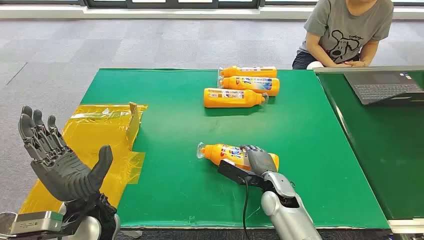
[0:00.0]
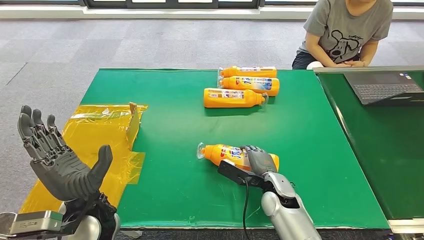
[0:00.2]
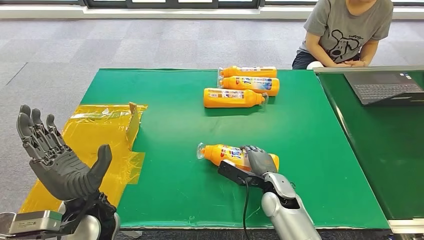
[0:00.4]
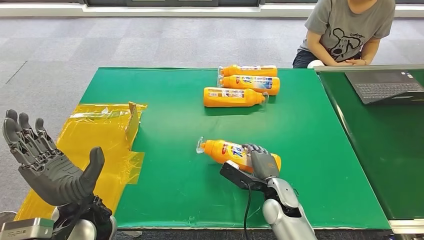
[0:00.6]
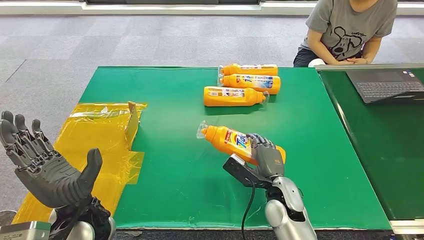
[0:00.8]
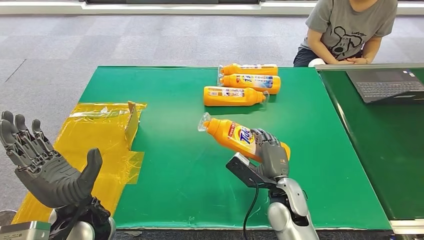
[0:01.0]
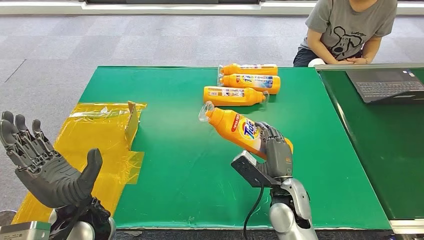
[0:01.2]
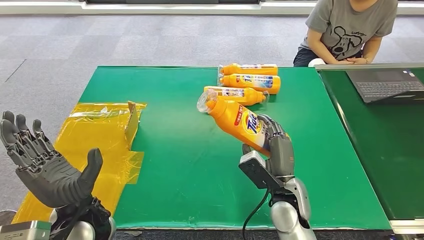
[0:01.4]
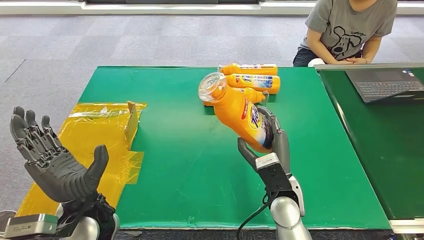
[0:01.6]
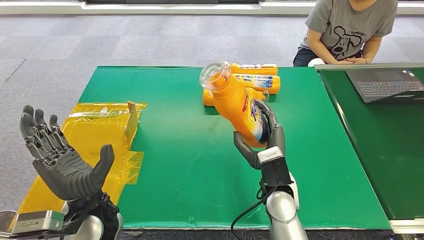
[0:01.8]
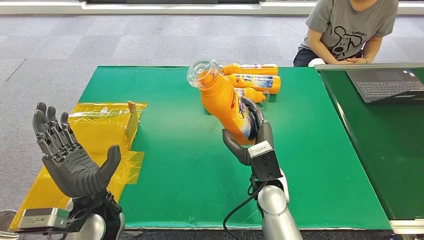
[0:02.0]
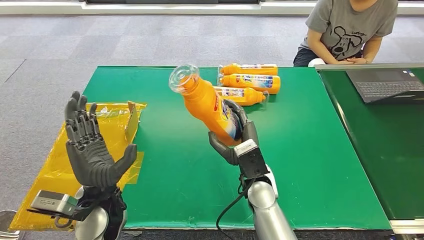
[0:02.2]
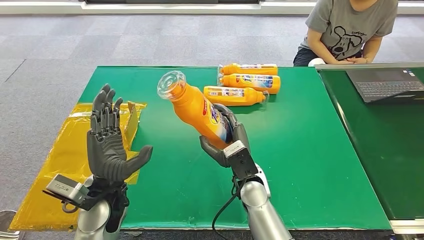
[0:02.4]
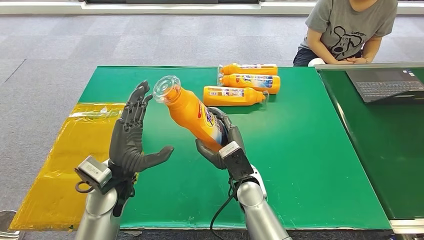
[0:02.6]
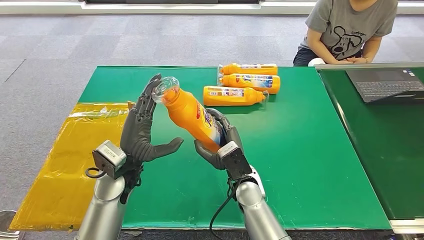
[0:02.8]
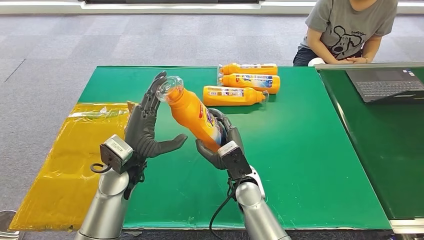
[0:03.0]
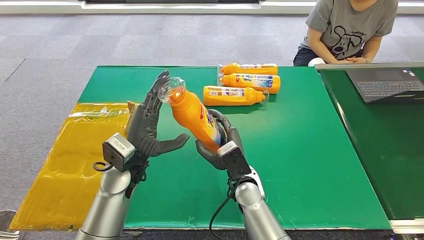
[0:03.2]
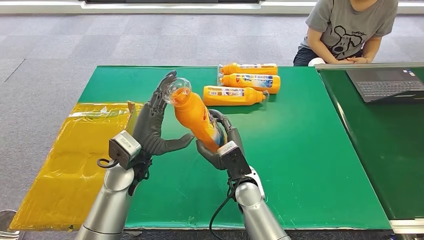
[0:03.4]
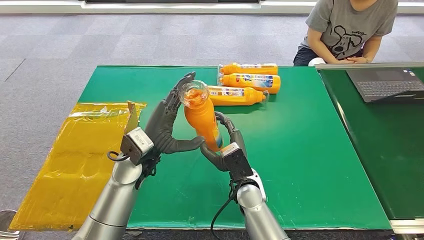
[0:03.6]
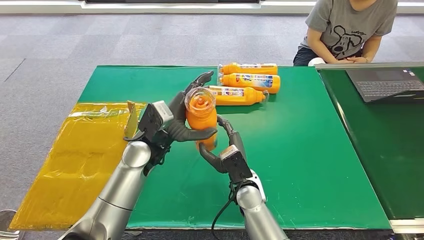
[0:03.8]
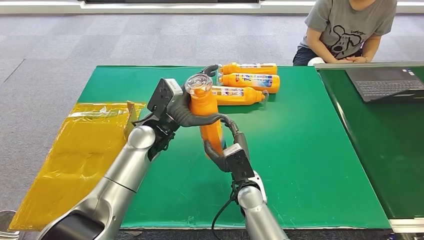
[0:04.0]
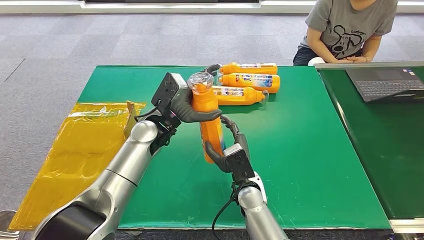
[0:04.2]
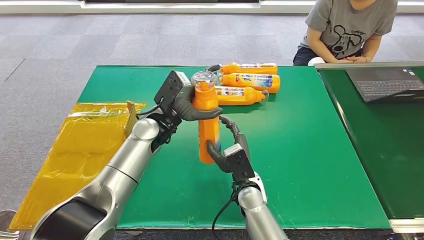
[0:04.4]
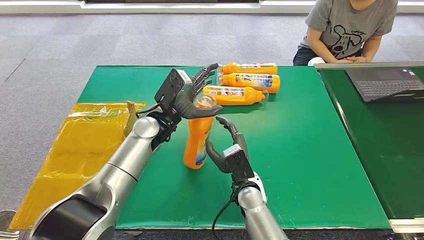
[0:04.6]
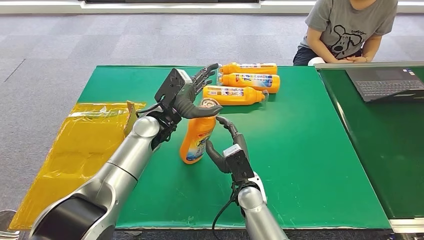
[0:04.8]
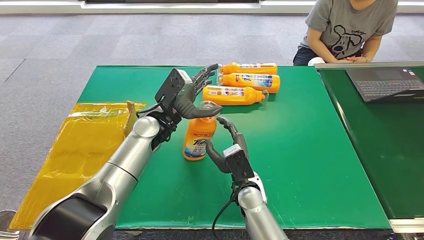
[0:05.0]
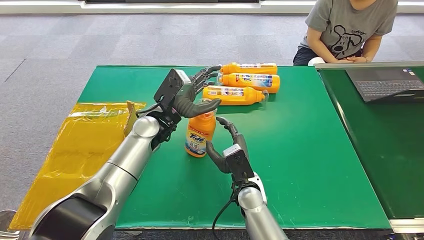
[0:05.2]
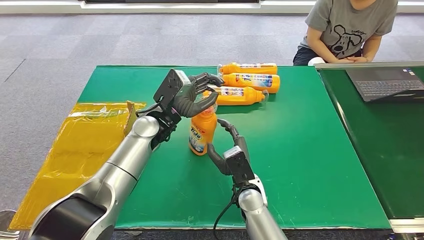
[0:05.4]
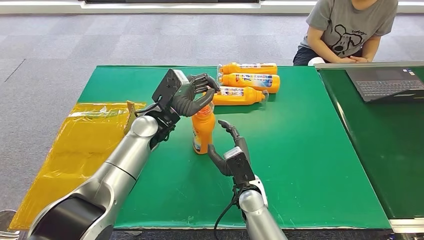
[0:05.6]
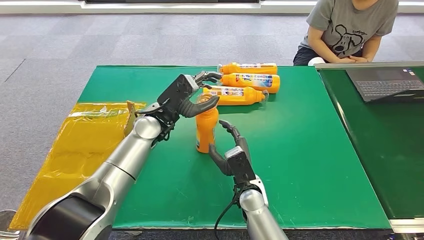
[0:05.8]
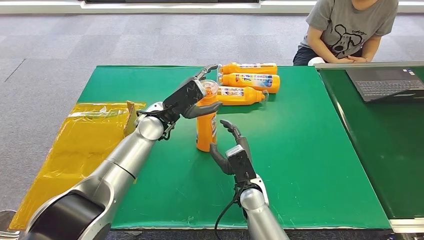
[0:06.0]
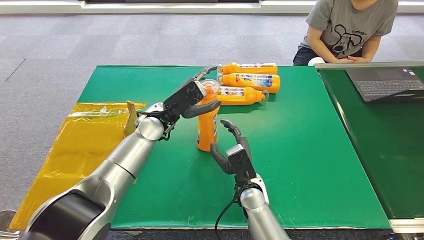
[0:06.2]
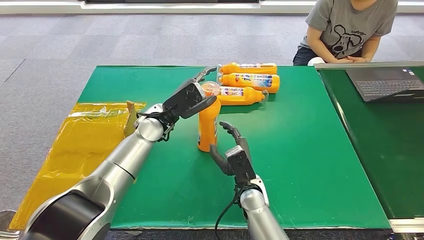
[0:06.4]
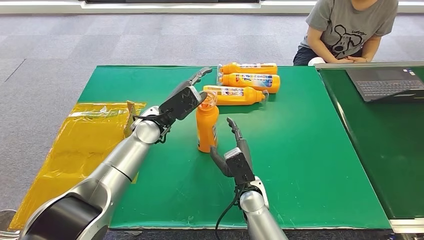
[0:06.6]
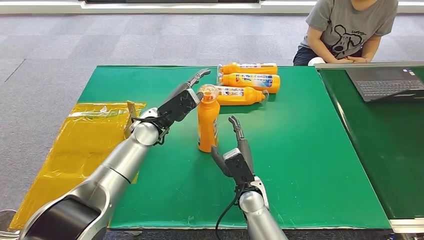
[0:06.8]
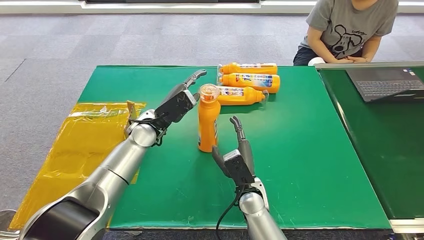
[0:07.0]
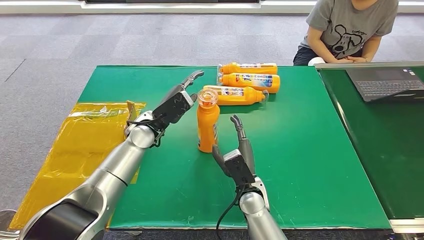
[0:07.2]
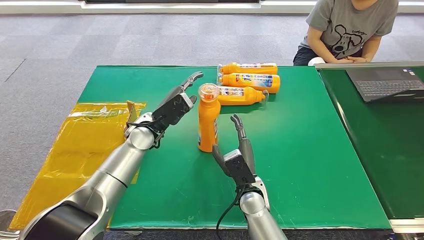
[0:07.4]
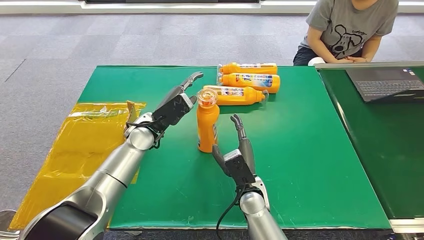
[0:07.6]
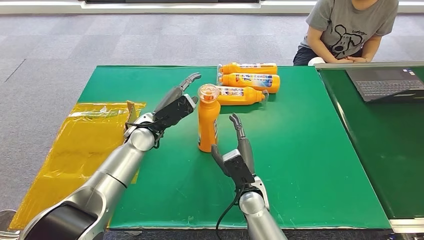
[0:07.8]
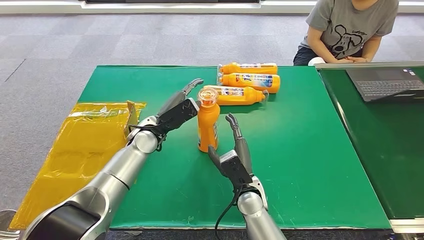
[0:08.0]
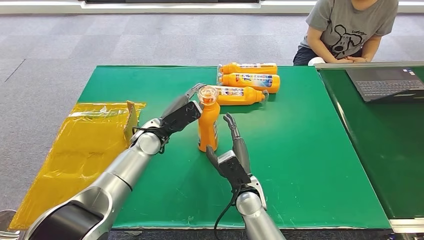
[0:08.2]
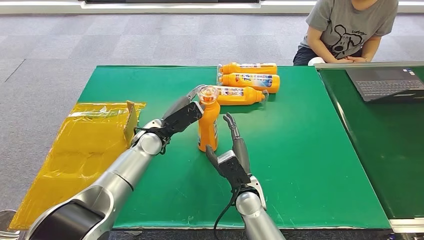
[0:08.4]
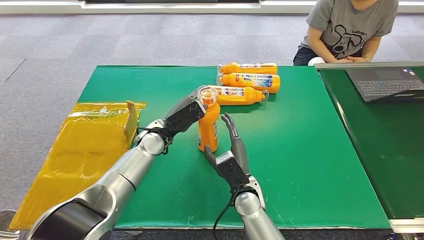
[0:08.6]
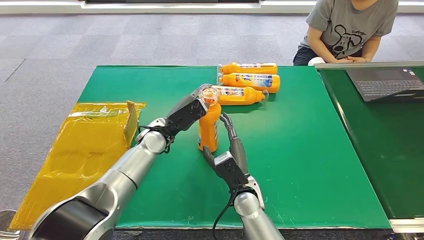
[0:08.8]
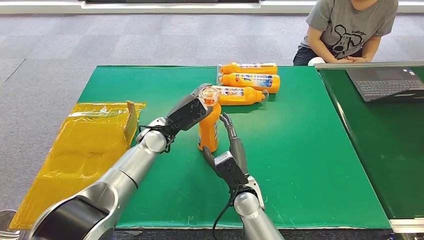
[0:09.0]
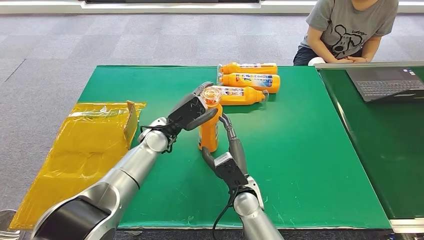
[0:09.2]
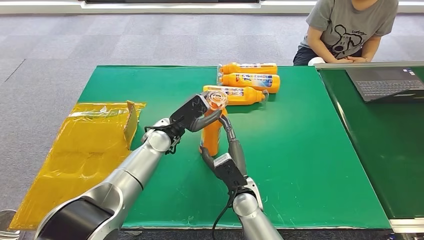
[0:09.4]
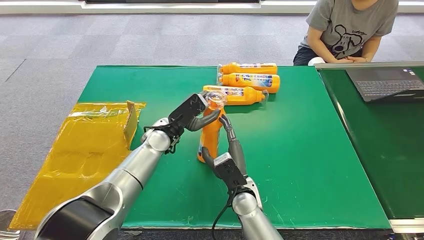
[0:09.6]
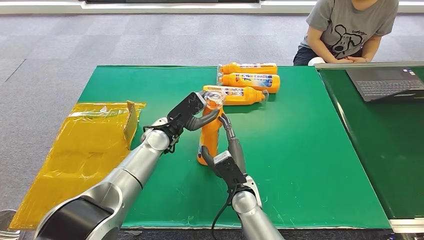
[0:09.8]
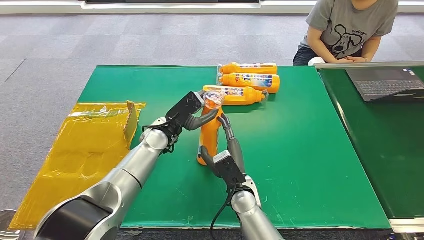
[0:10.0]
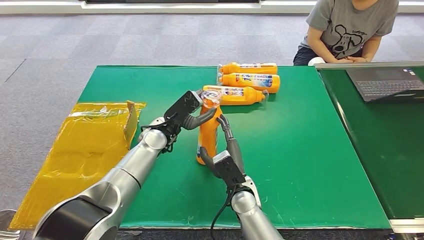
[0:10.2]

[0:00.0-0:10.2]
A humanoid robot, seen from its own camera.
Step, 0:00.0 to 0:01.4: Pick up the bottle from the table.
0:03.0 to 0:04.4: The left hand heads forward and to the right, covering about 10 cm.
0:04.4 to 0:05.8: The hands make only small movements.
0:05.8 to 0:07.2: The hands move only a little.
0:07.2 to 0:10.2: The hands make only small movements.

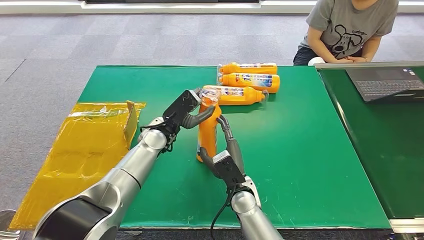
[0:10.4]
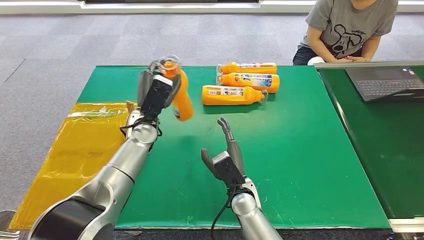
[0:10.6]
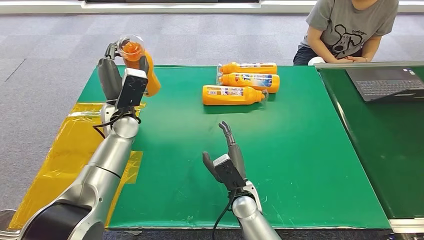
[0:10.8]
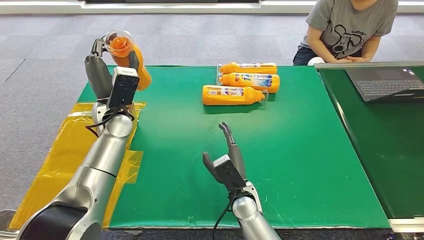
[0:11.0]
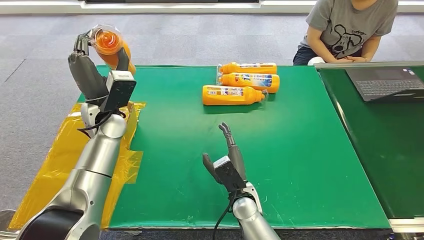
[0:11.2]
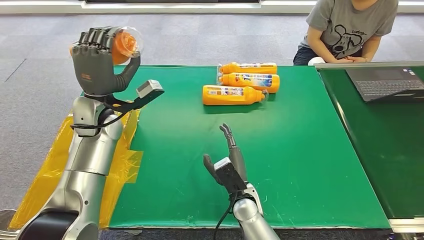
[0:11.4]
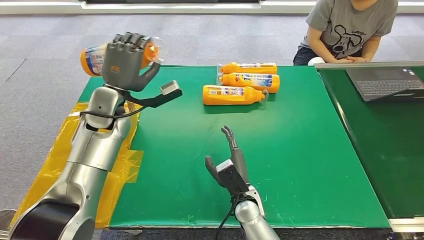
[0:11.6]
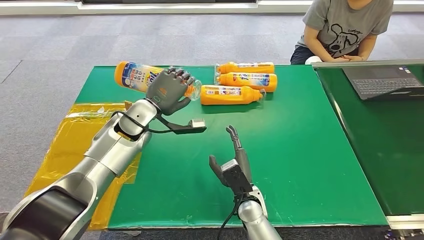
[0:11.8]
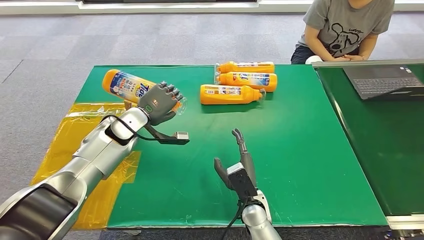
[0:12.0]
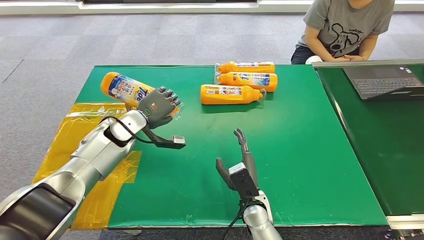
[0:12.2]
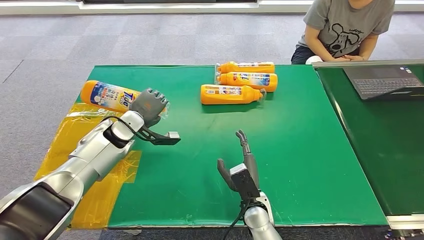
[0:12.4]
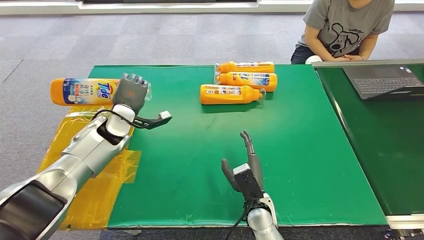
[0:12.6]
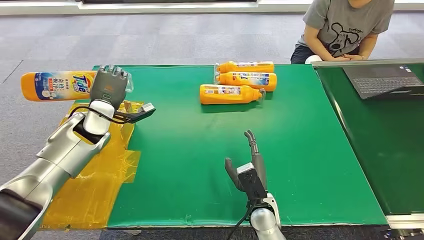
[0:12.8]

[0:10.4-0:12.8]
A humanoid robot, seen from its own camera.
Step, 0:10.4 to 0:12.6: Turn the bottle to the front side.
0:10.4 to 0:11.6: The left hand travels to the left and upward by approximately 15 cm.

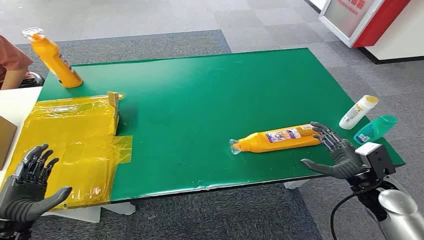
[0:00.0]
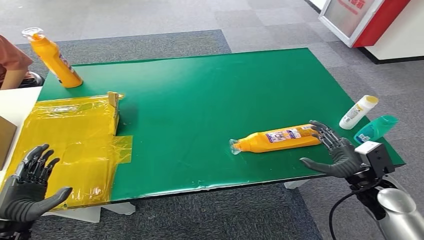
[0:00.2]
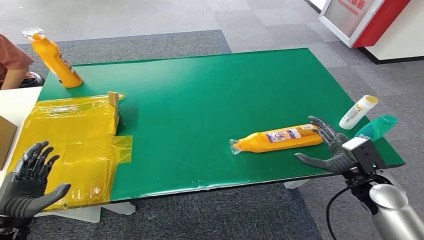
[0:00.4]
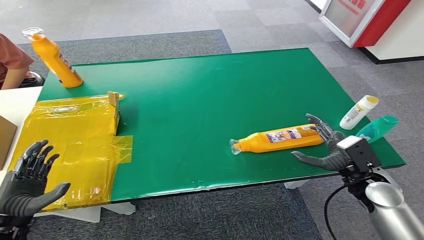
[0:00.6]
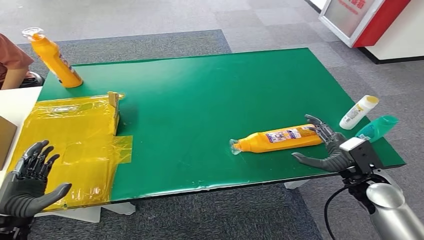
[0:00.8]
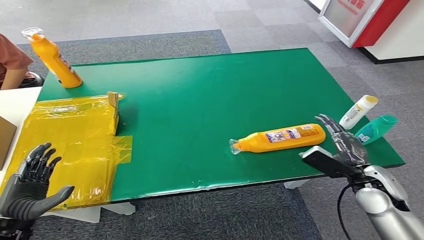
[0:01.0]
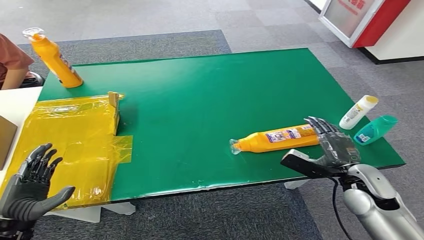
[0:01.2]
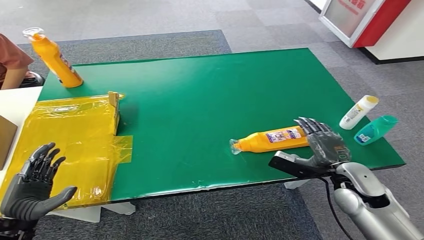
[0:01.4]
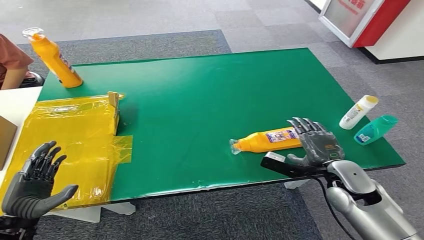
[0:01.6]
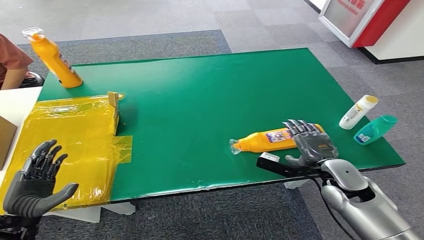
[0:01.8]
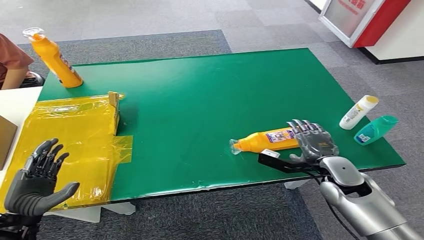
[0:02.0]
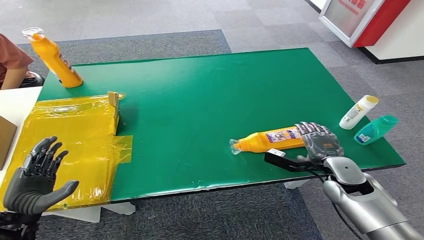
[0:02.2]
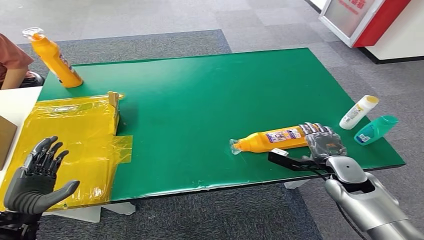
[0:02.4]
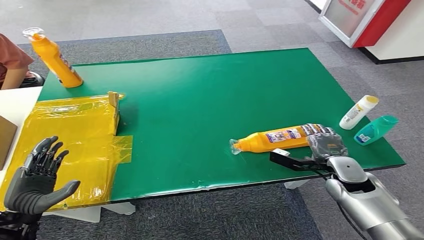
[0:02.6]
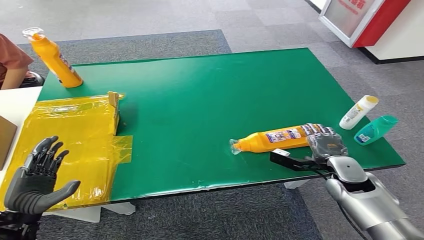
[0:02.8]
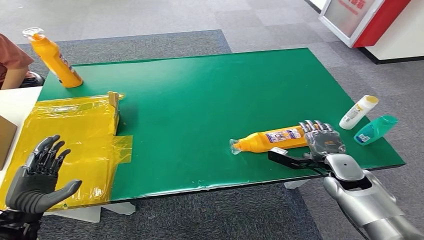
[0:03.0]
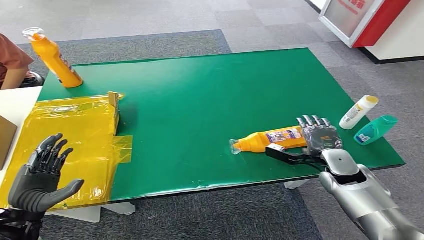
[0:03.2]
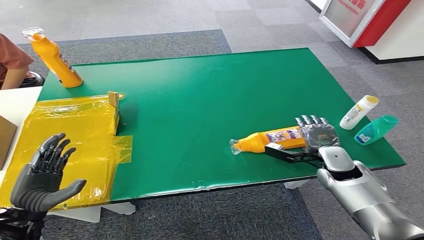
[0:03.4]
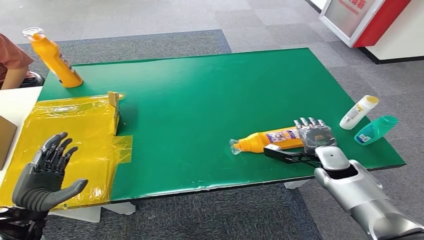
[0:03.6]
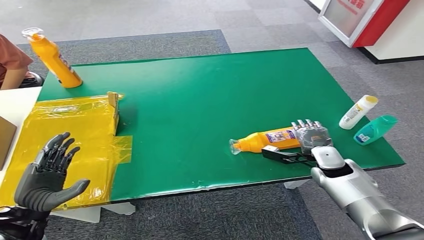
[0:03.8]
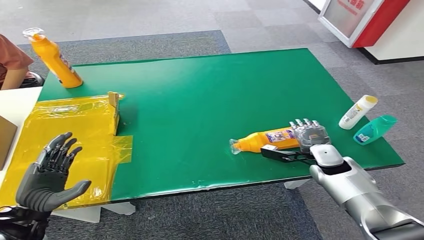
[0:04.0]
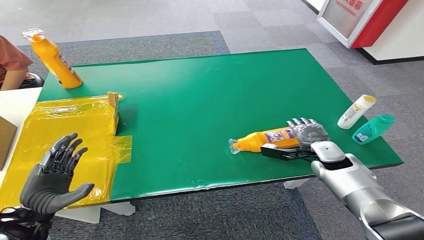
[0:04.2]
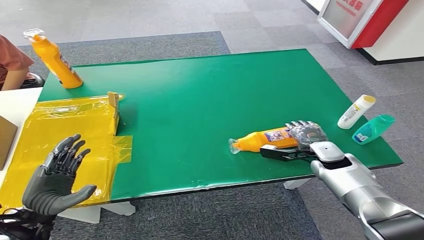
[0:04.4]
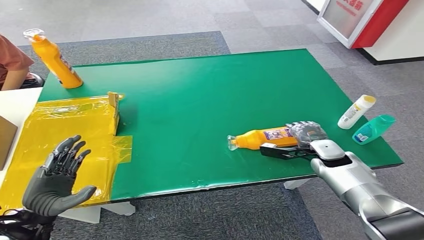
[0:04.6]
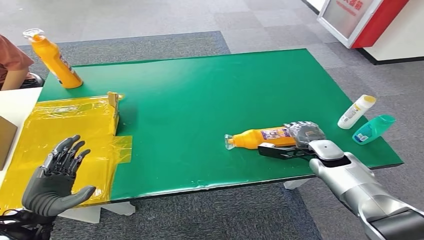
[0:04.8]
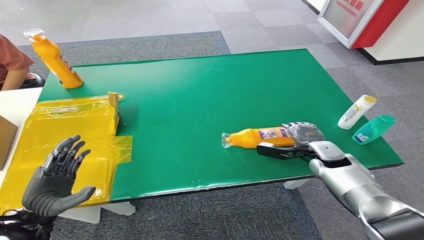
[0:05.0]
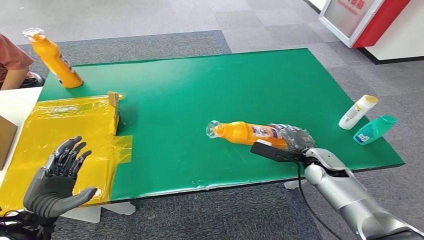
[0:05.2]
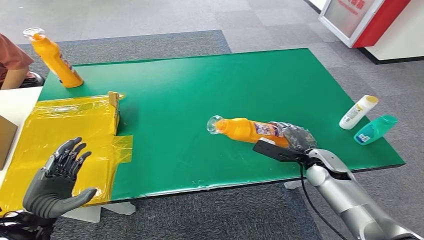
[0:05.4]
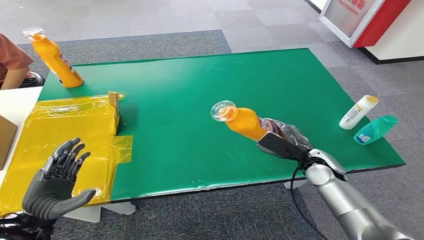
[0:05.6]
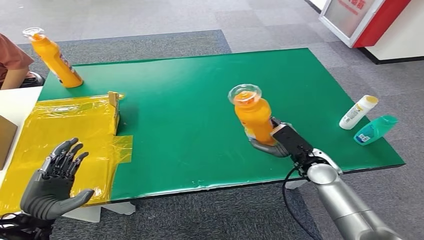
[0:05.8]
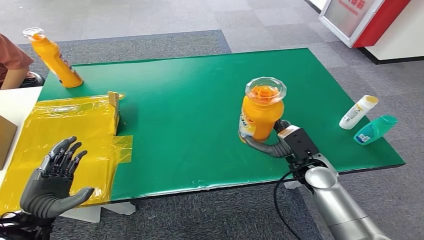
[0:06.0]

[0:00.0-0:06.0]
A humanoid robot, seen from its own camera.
0:01.6 to 0:03.0: The right hand ends up about 5 cm from where it was.
0:03.0 to 0:04.4: The right hand heads forward, covering roughly 5 cm.
0:04.4 to 0:06.0: The right hand travels to the left and backward by some 10 cm.
